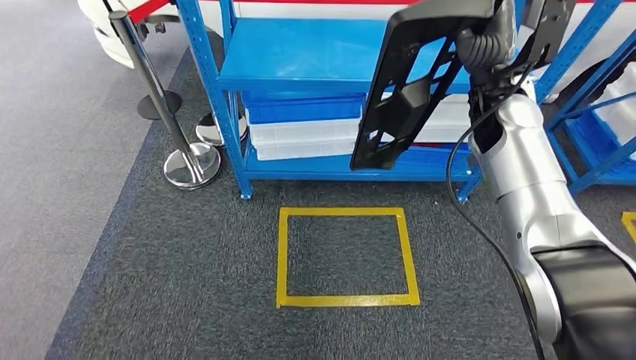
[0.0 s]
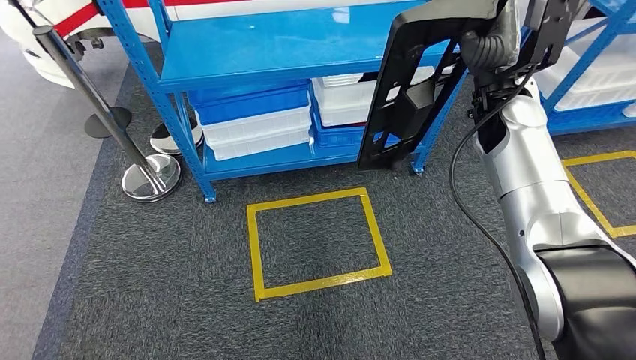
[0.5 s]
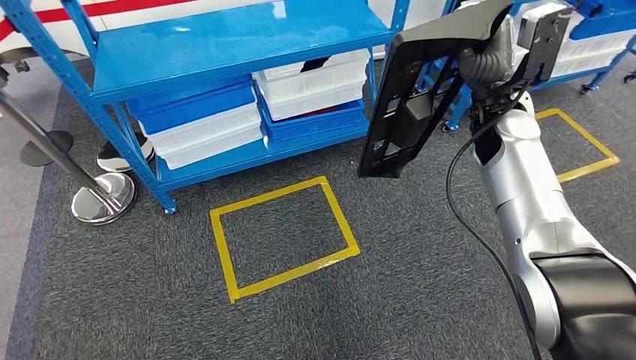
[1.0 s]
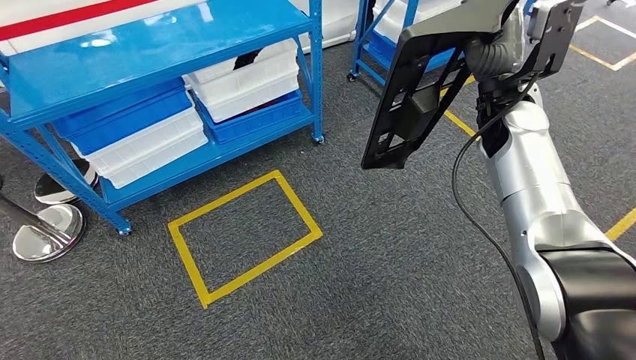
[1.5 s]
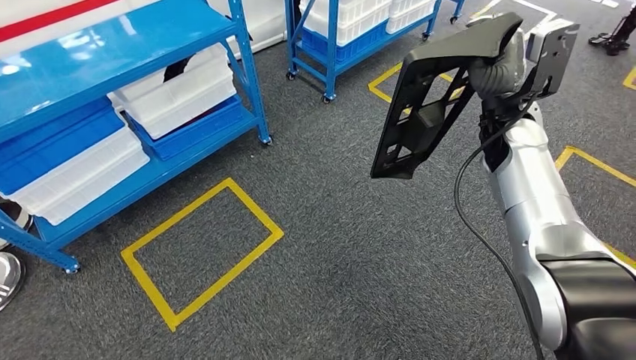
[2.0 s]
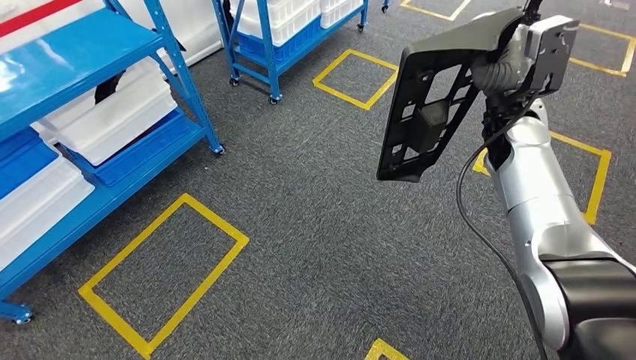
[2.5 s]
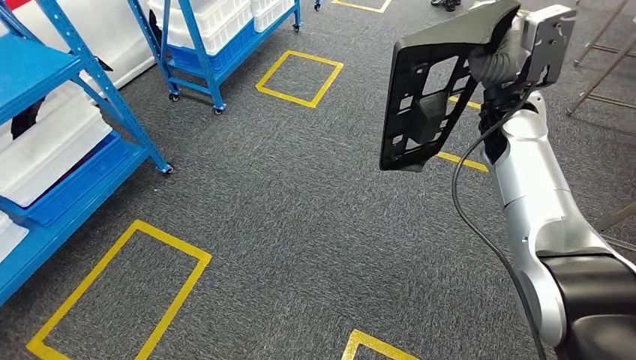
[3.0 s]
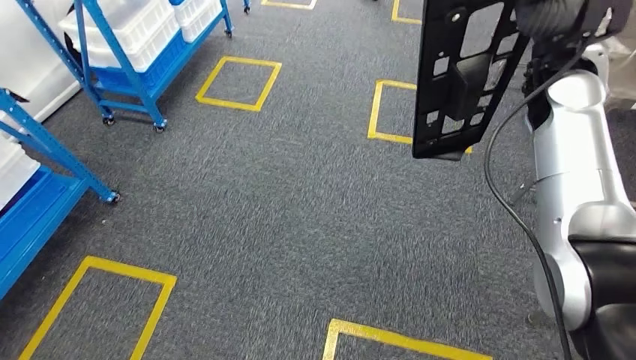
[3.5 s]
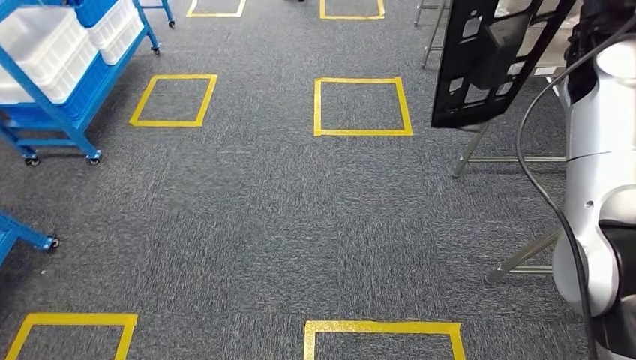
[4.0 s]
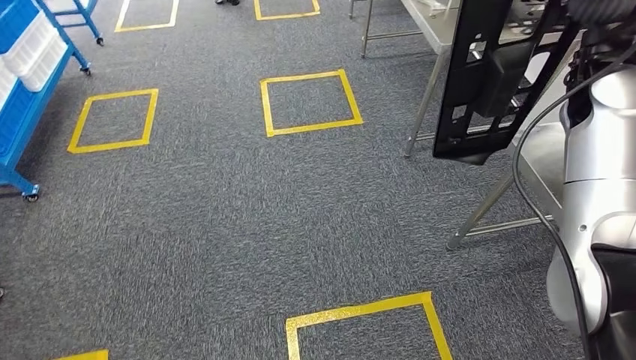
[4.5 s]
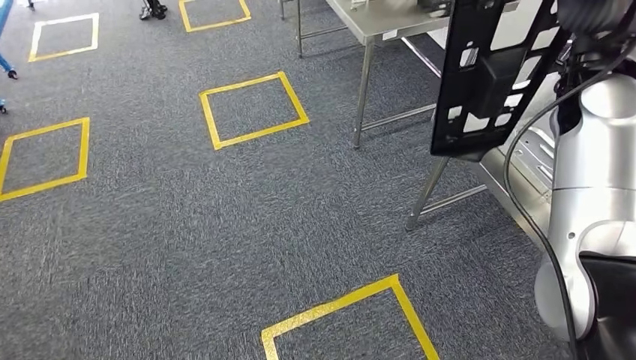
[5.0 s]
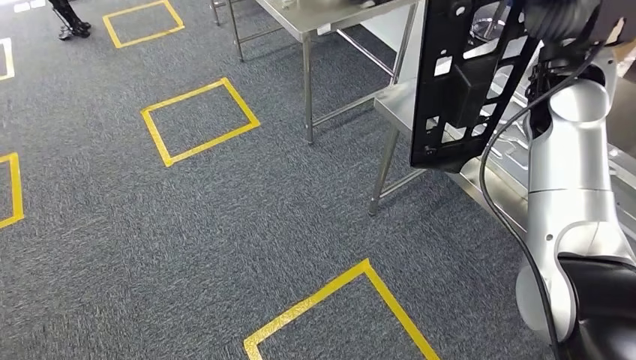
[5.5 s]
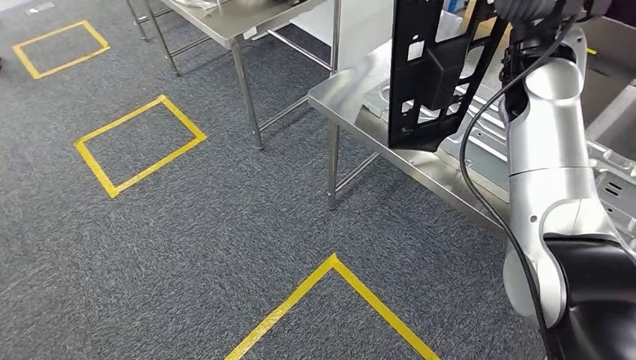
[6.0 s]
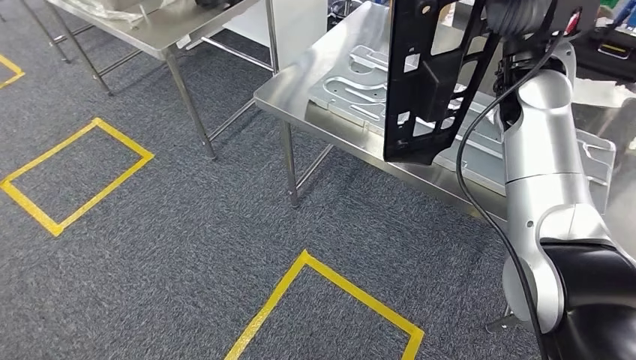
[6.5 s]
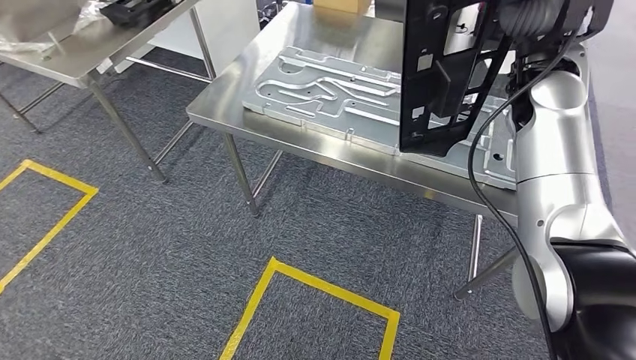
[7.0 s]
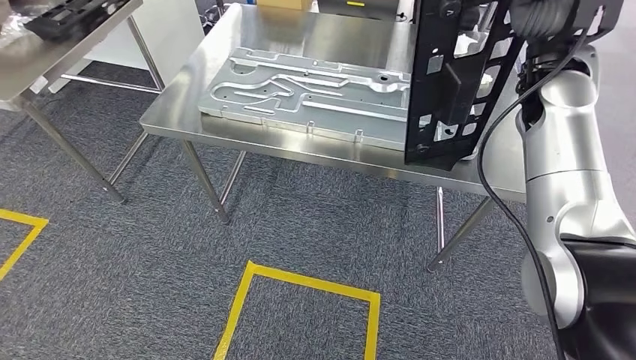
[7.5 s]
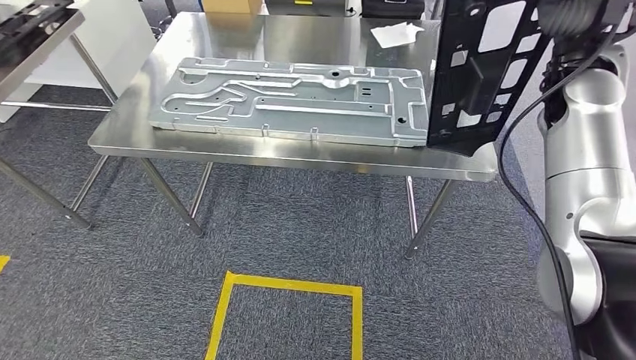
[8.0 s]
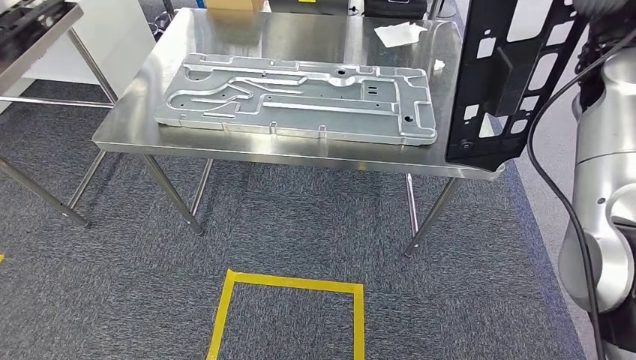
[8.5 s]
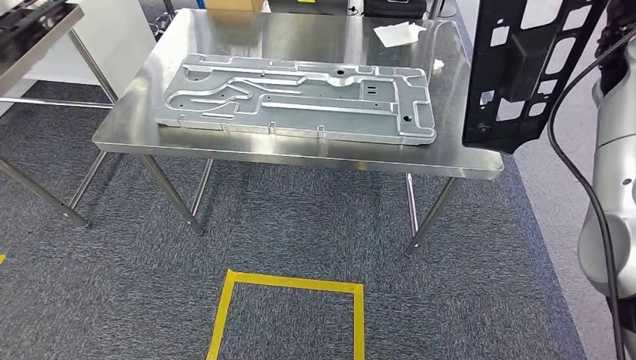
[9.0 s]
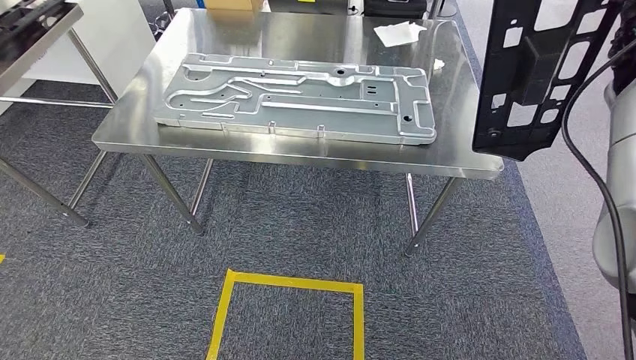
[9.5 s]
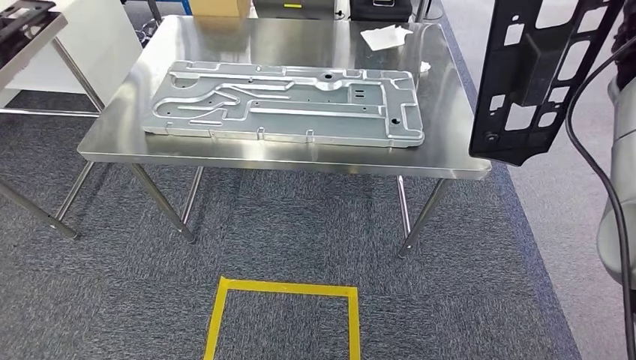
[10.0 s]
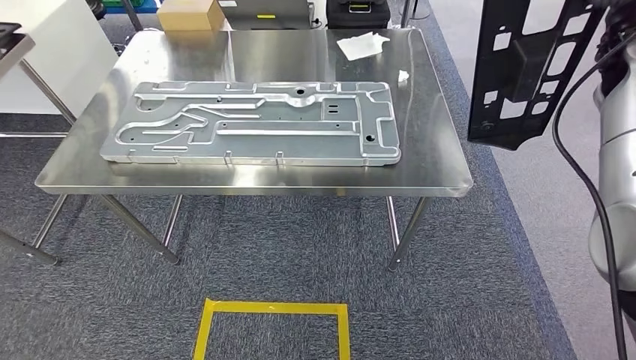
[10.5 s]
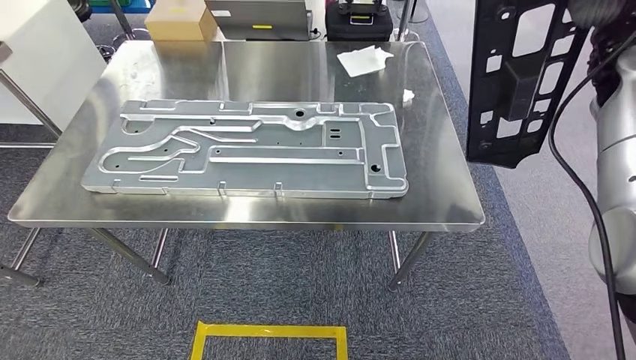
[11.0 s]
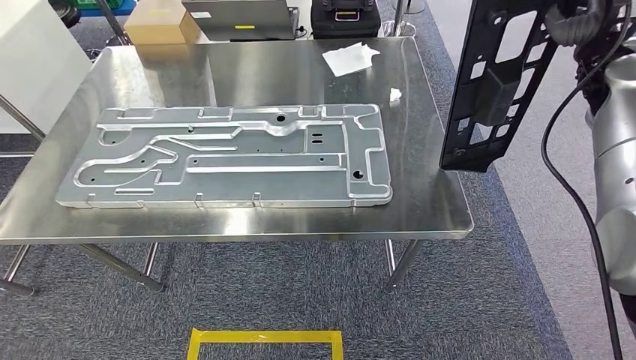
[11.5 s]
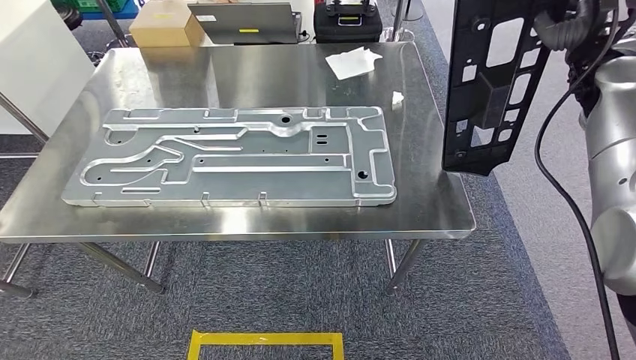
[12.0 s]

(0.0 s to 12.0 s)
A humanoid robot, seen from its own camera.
Step, 0.0 s - 7.0 s: Move the large material to the workbench.

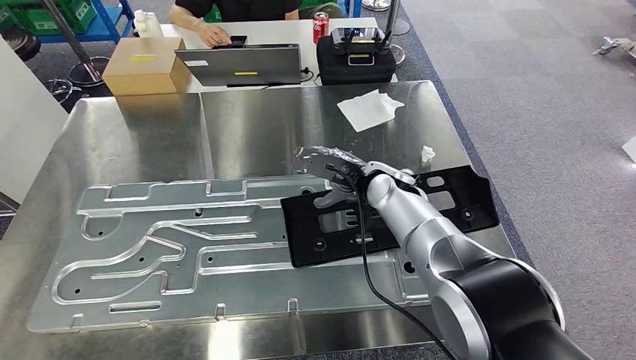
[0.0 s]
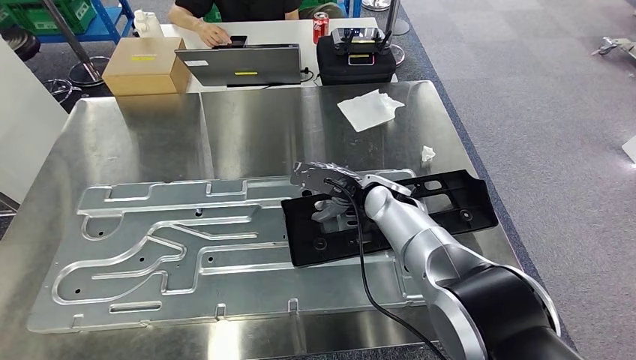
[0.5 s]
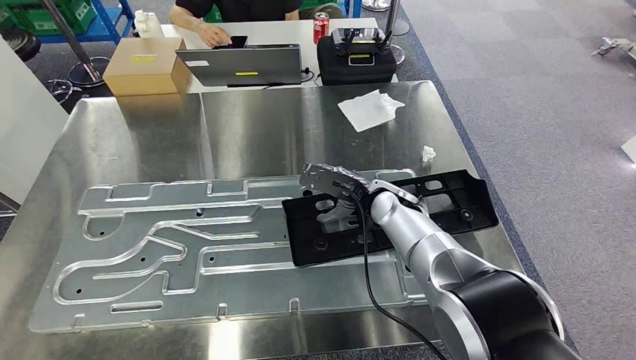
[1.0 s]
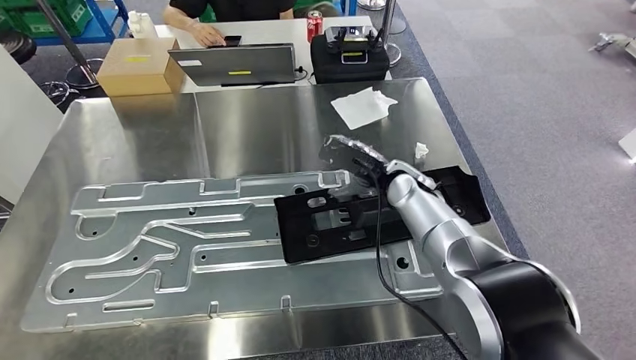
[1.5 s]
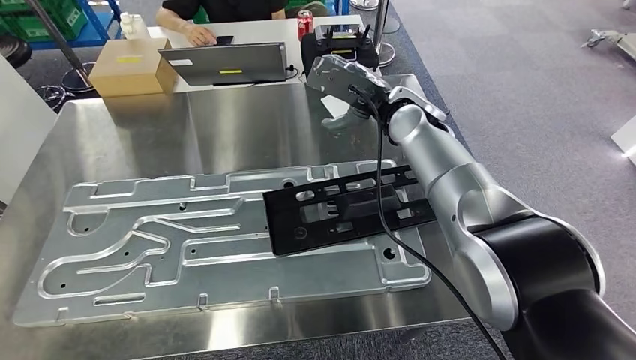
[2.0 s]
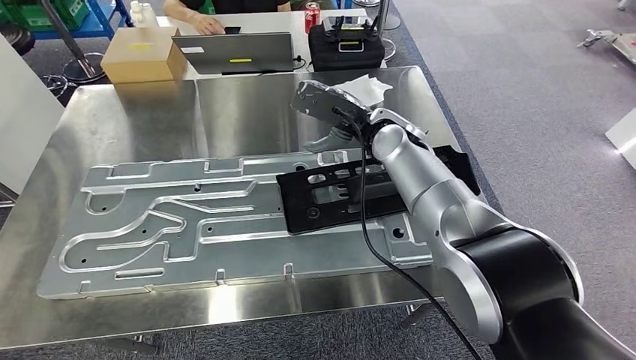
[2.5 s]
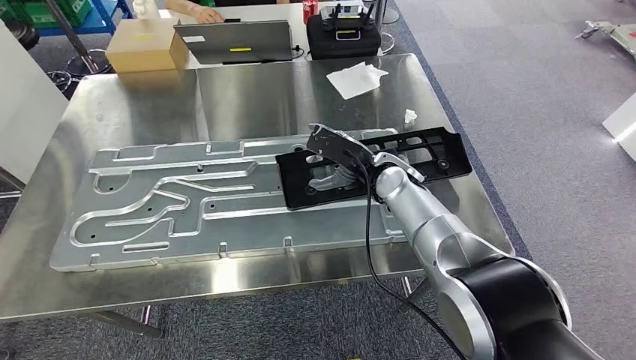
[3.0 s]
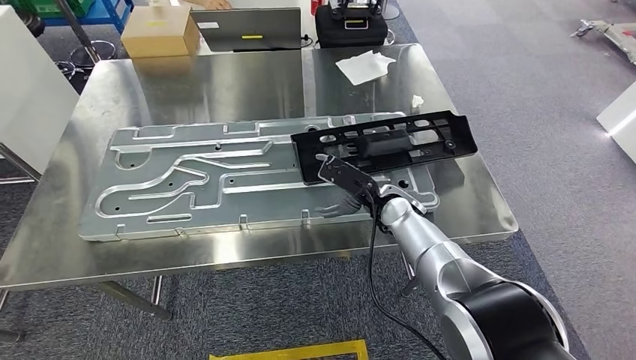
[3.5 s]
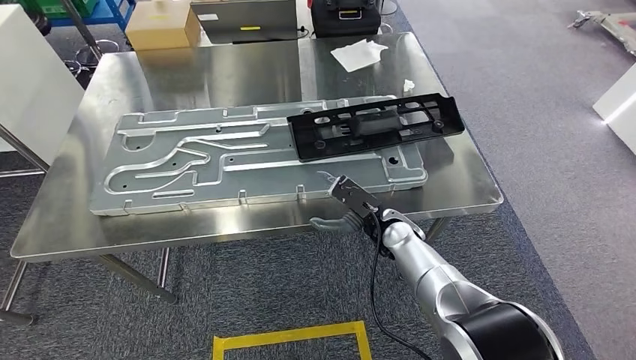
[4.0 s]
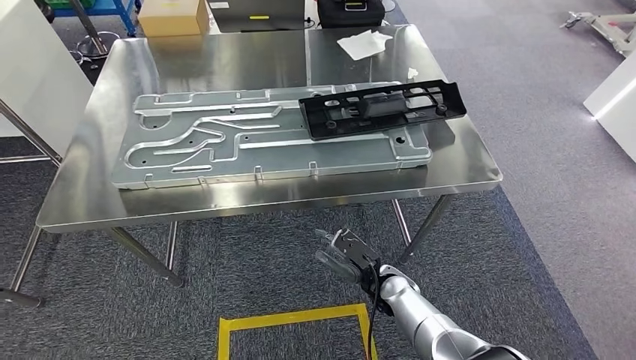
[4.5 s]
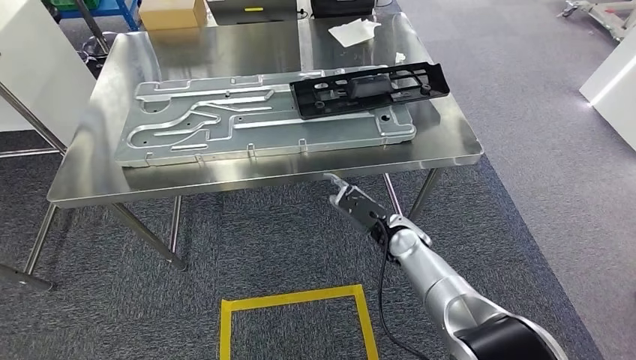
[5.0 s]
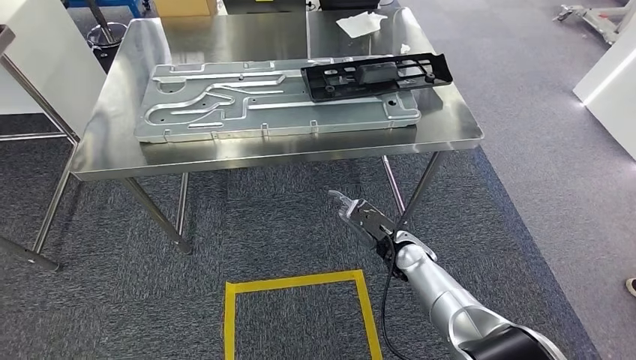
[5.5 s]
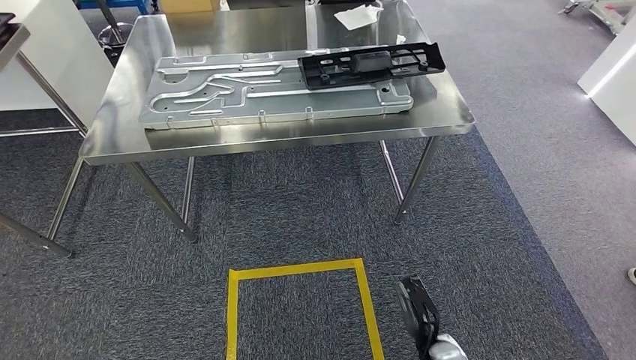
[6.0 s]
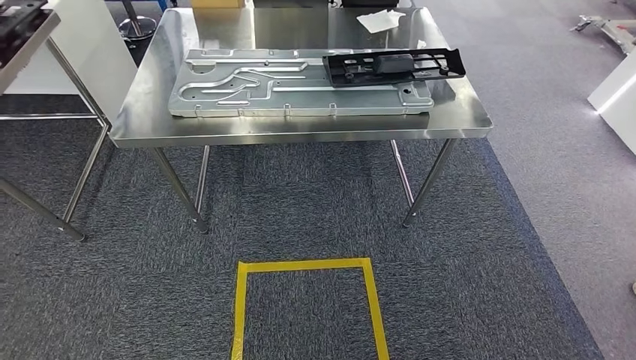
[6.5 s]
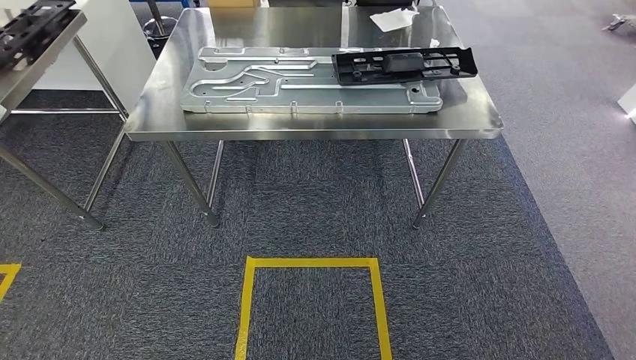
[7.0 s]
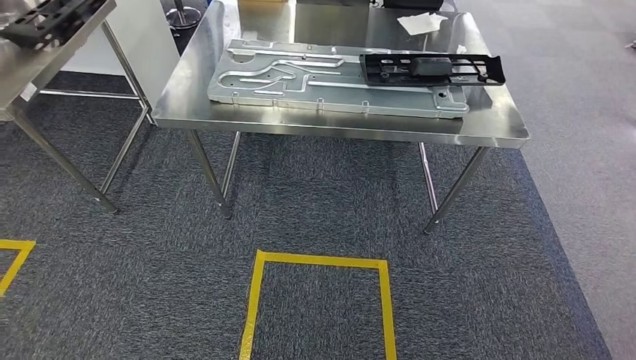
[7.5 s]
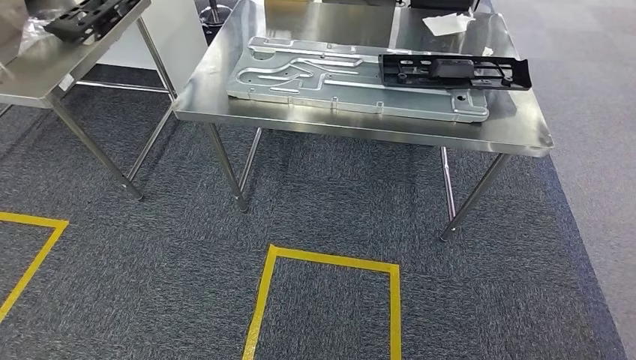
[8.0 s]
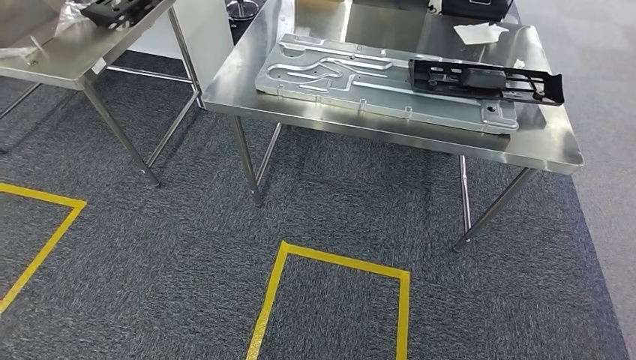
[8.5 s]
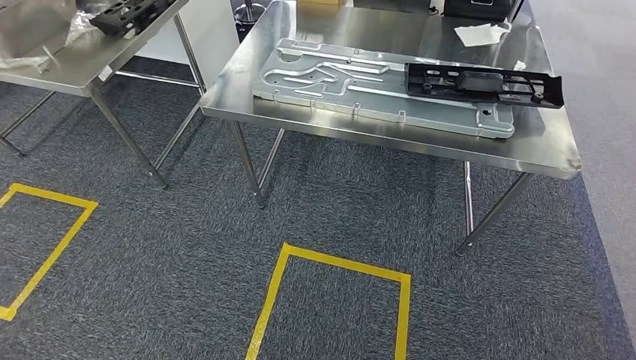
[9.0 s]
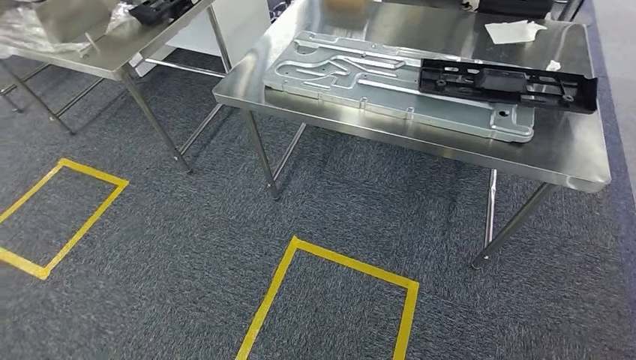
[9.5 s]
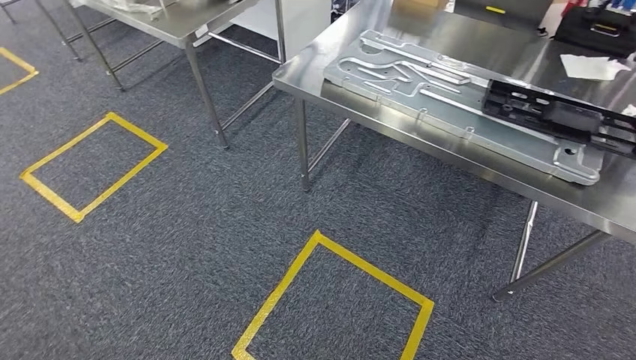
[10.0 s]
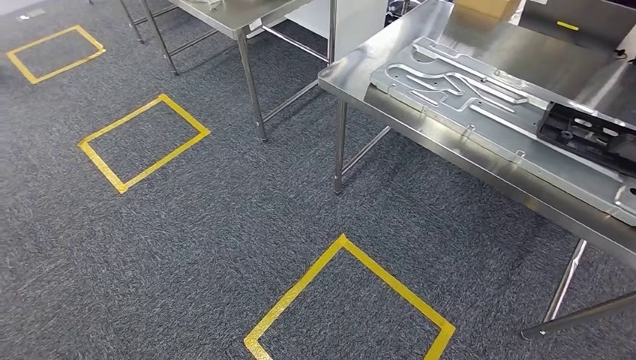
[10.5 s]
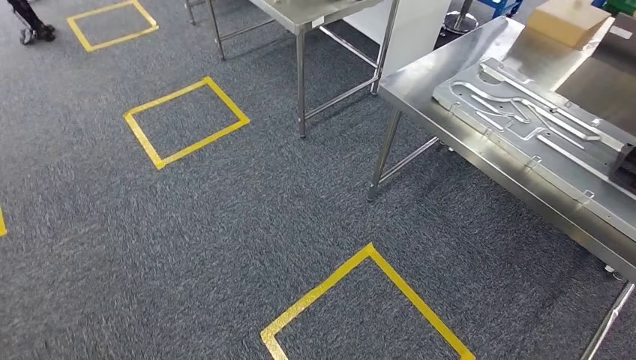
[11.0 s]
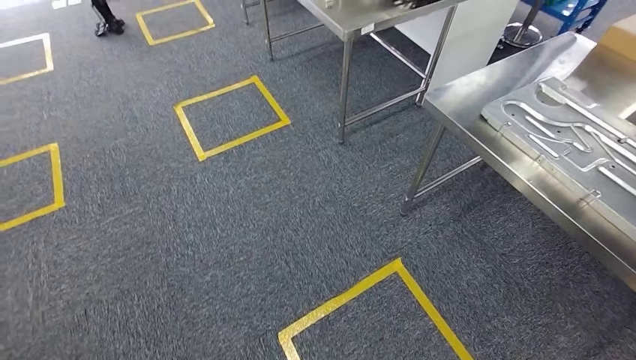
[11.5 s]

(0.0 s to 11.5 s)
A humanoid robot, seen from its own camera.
Step, 0.0 s - 4.5 s: Insert the large material into the corresponding slot on the workbench.
